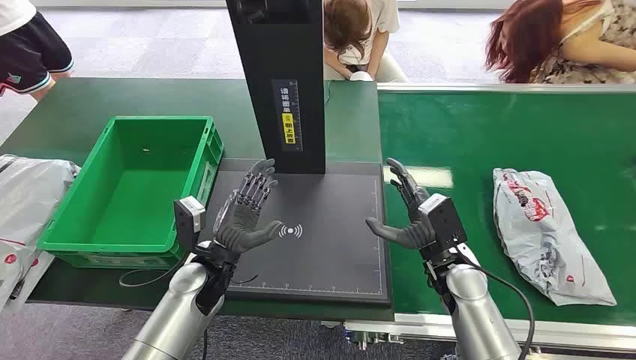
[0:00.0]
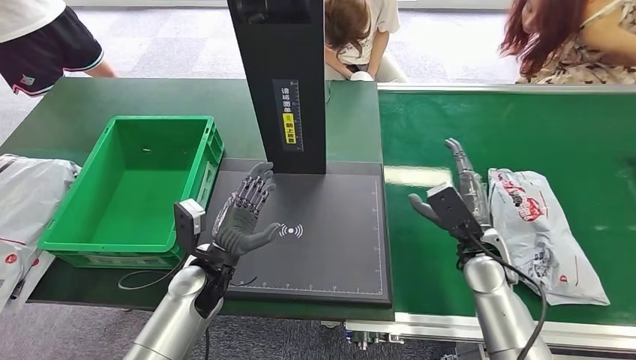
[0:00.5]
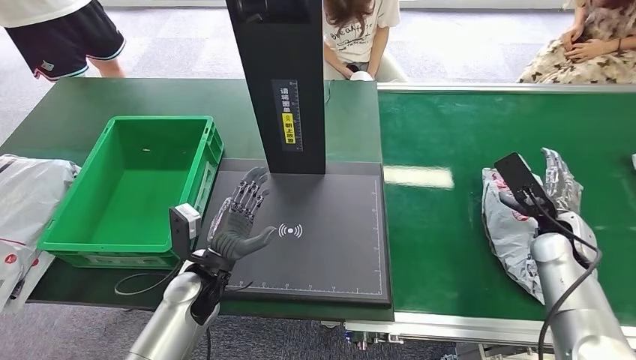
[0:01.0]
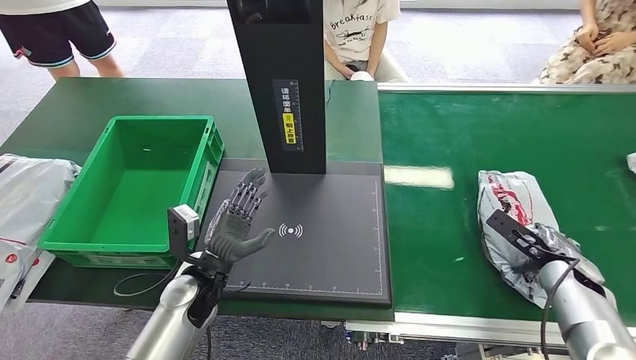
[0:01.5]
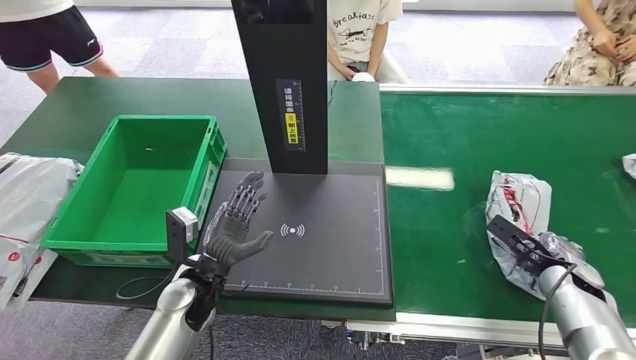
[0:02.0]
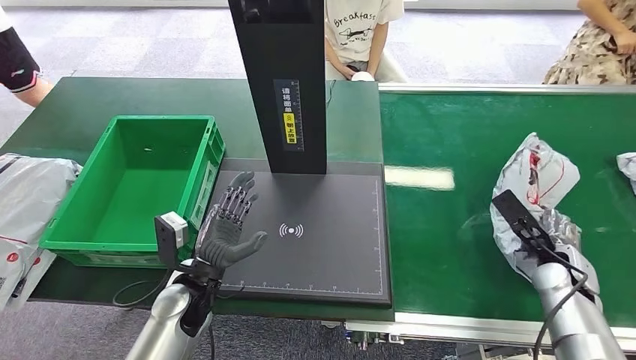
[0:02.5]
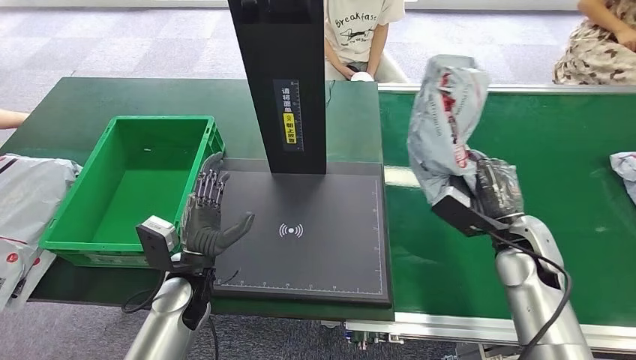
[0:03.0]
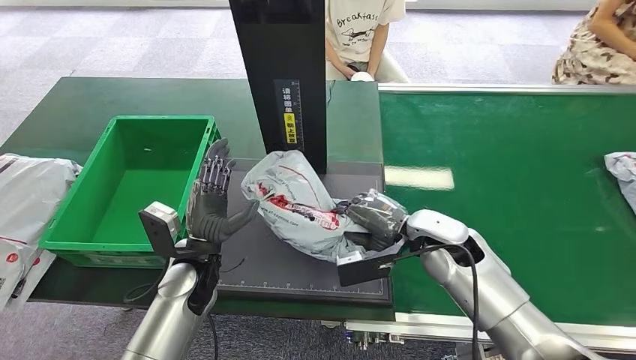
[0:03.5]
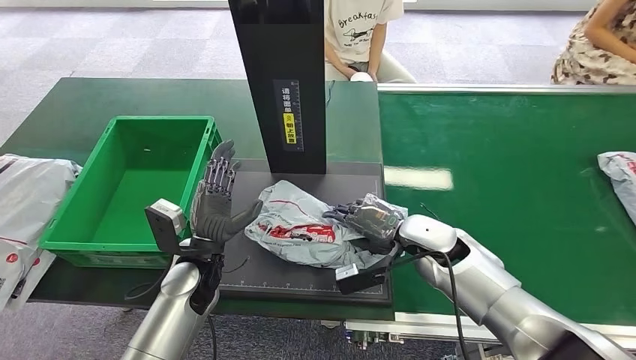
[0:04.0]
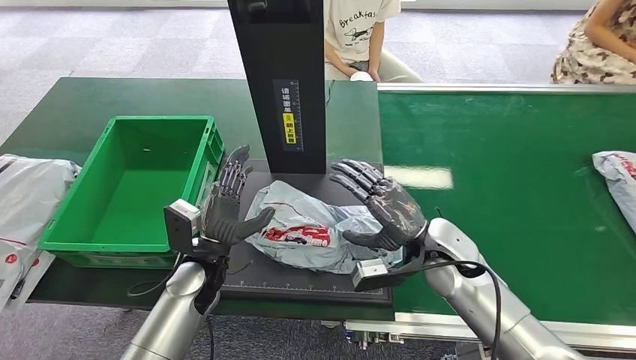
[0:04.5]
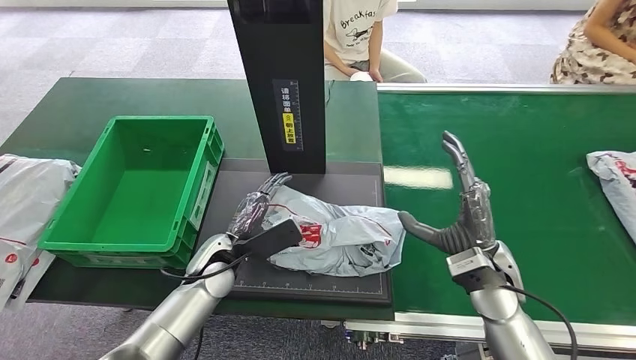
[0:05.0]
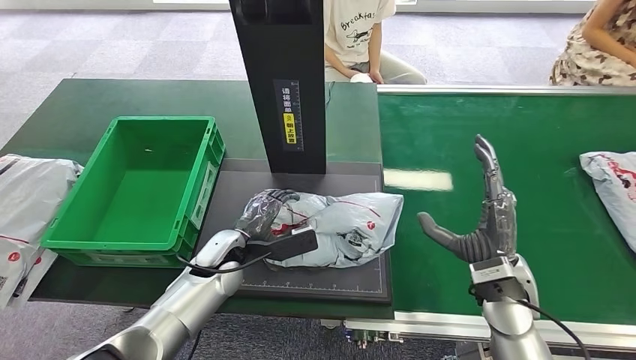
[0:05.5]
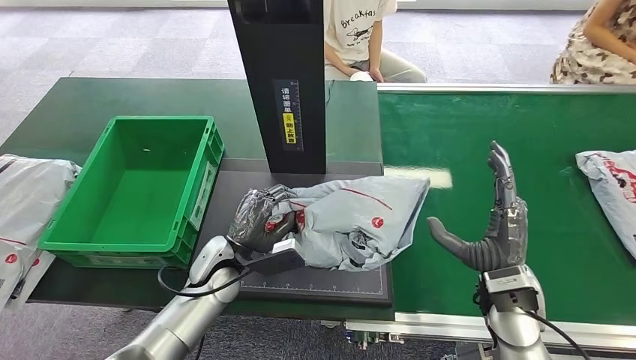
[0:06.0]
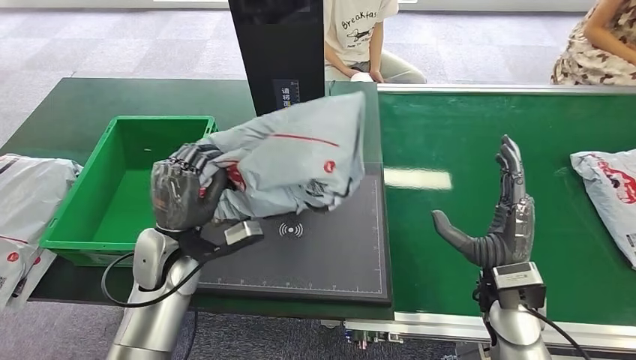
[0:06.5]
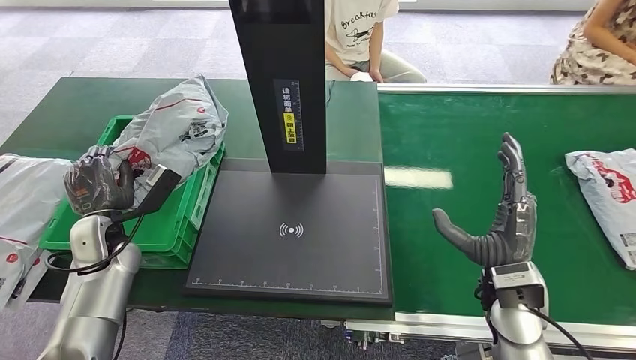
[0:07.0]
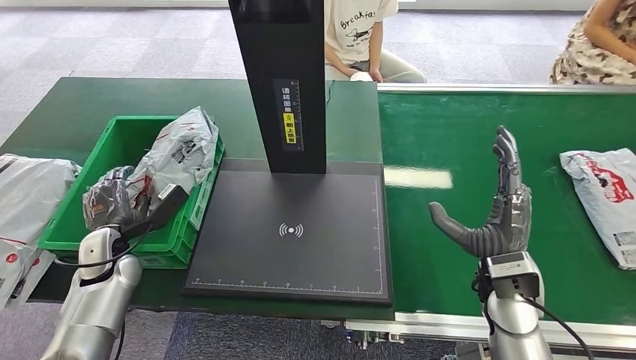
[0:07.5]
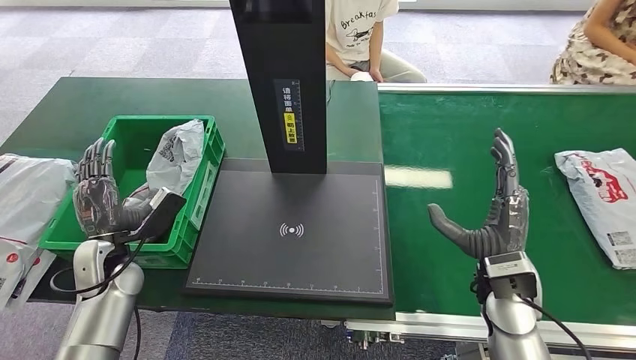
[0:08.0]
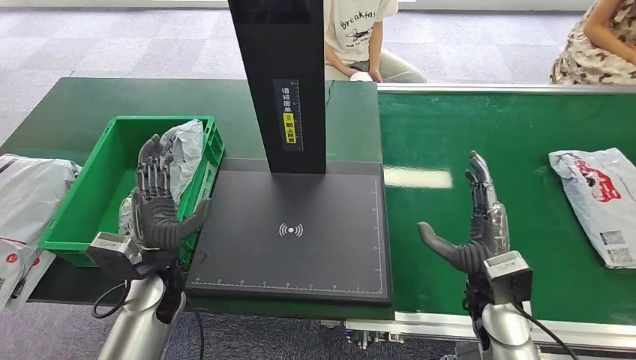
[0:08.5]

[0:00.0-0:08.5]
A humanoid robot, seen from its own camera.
Step, 0:00.0 to 0:02.5: Pick up the package from the conveyor belt.
Step, 0:03.0 to 0:04.5: Place the package onto the inbound machine.
Step, 0:05.0 to 0:06.5: Pick up the package from the inbound machine.
Step, 0:07.0 to 0:08.5: Place the package into the parcel locker.
